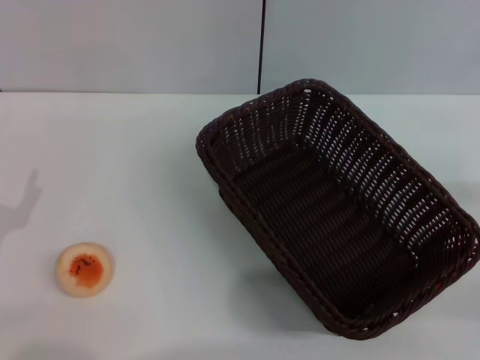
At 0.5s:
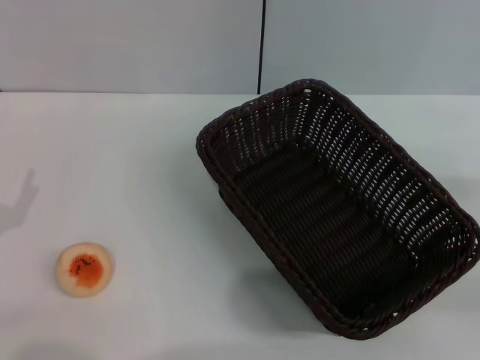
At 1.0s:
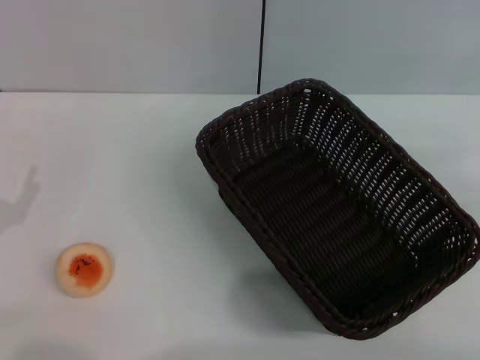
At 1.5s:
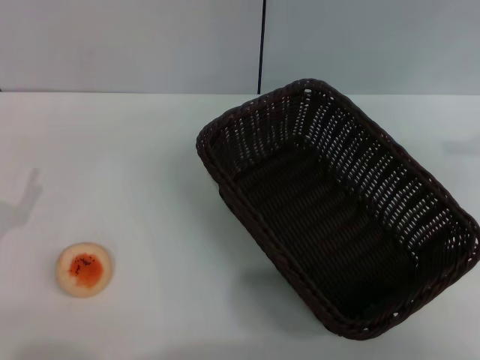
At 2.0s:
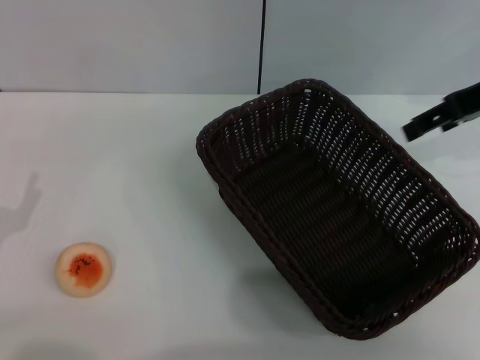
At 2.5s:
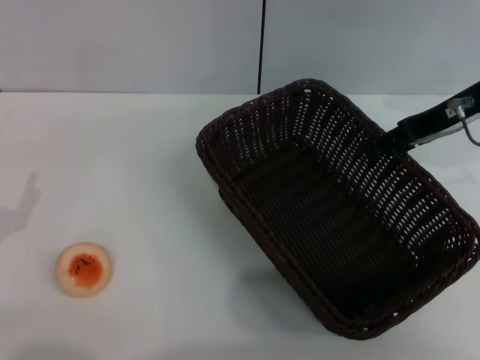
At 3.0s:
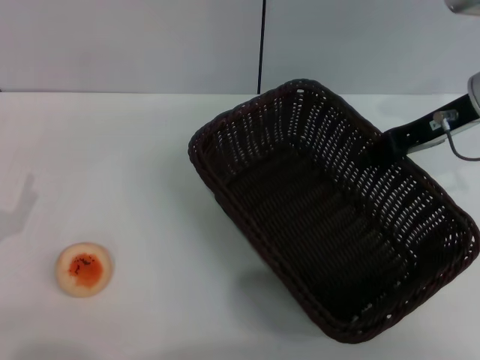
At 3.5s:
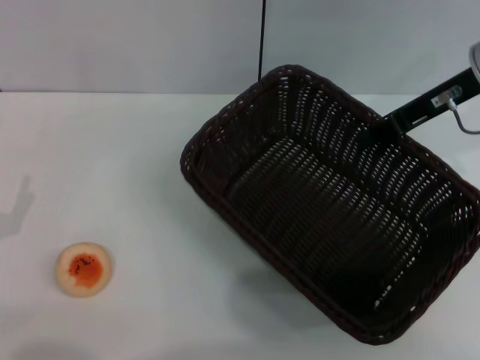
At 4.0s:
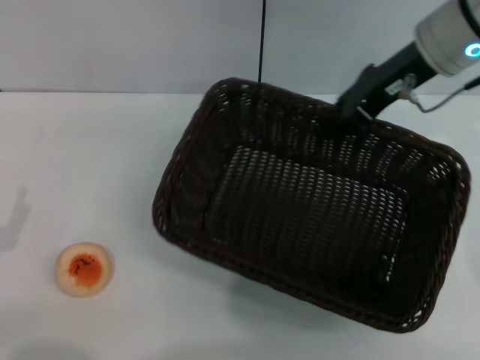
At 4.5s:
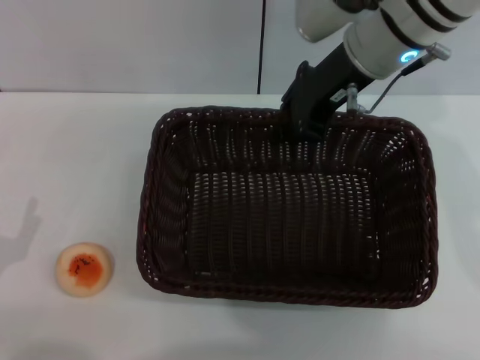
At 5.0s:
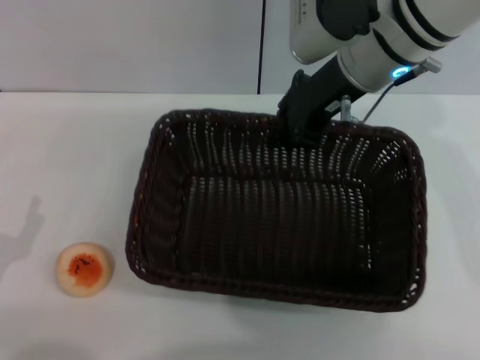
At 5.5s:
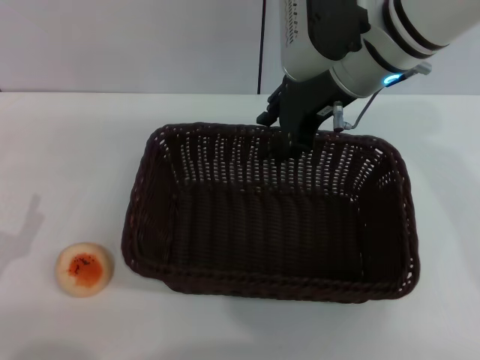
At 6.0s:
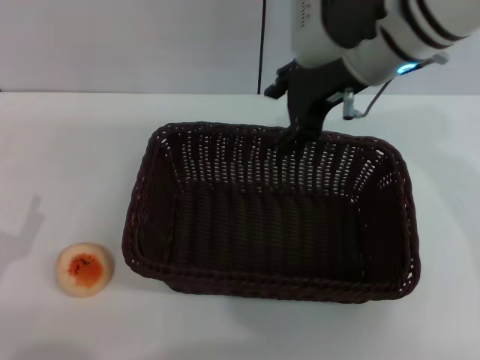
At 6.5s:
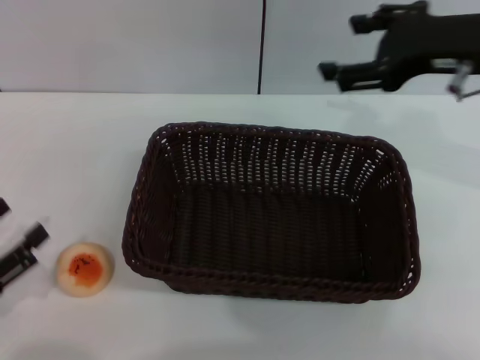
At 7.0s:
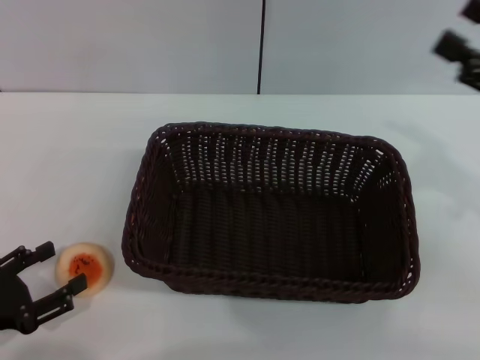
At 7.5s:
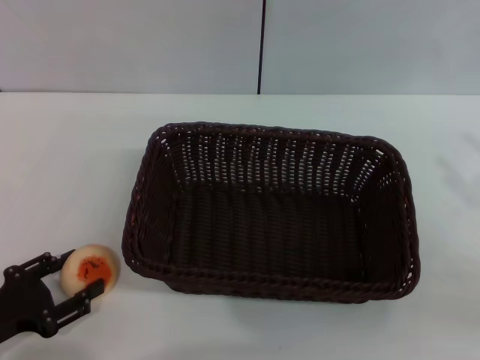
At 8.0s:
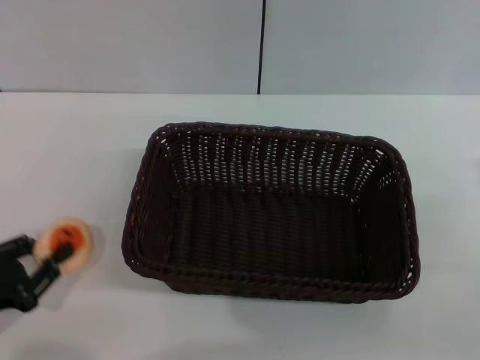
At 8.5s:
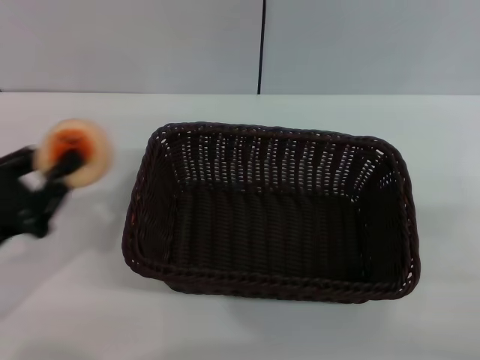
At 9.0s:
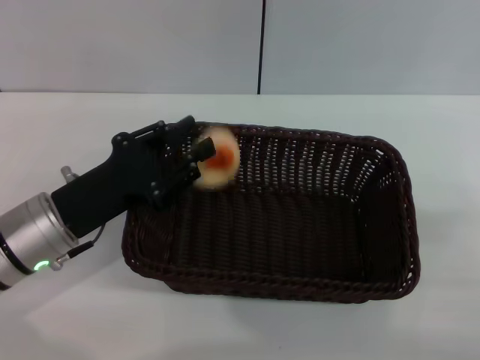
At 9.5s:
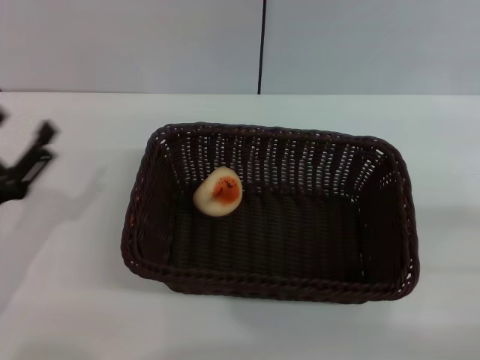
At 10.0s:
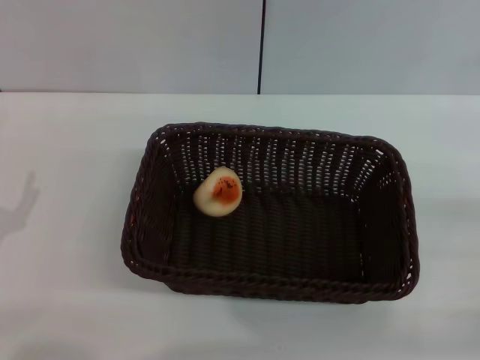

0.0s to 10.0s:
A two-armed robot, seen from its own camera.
Step, 0.0s to 6.5s: Move the basket to the center of view with the right gripper.
Step, 7.0s to 8.0s: Pick up the egg yolk pastry with the left gripper.
Step, 8.5s to 9.0s: Place the egg yolk pastry into the basket with the left gripper.
0.0s to 2.0s: The right gripper heads forward, upward and to the left, covering some 25 cm.
2.0s to 4.0s: The right gripper shifts roughly 10 cm to the left, and closes up.
4.0s to 6.0s: The right gripper shifts roughly 5 cm to the left, and opens.
6.0s to 8.0s: The right gripper travels to the right, backward and downward by about 35 cm; the left gripper closes its fingers.
8.0s to 10.0s: The left gripper travels to the right and back again, some 10 cm each way, and opens up.
